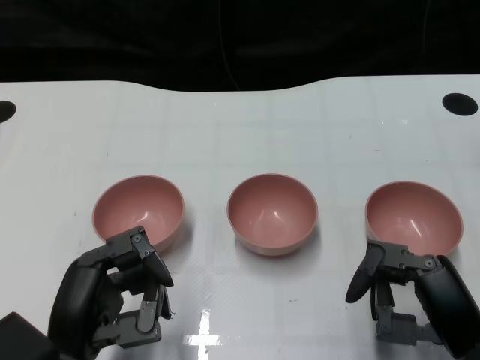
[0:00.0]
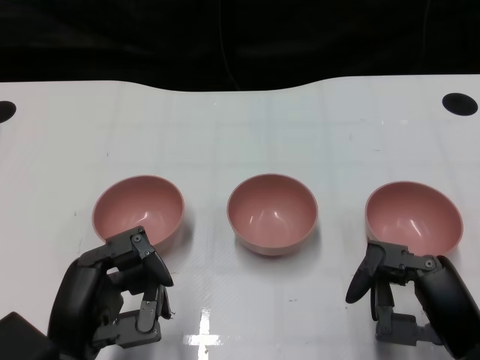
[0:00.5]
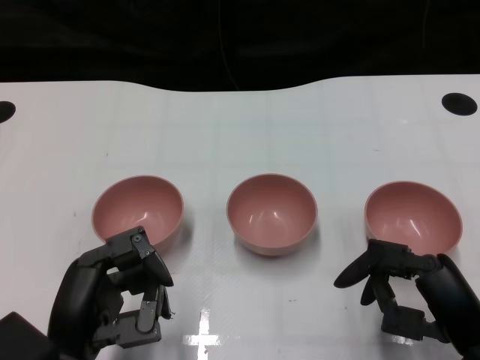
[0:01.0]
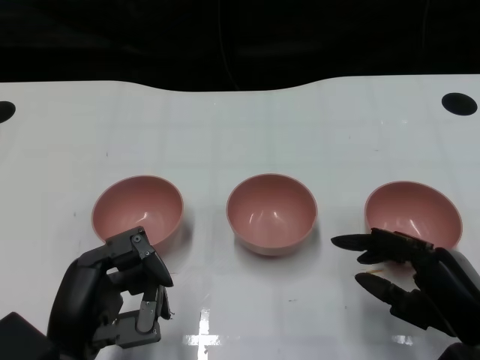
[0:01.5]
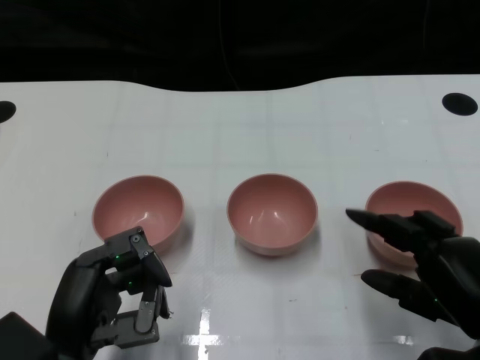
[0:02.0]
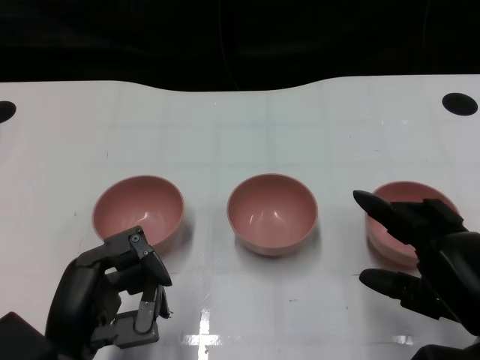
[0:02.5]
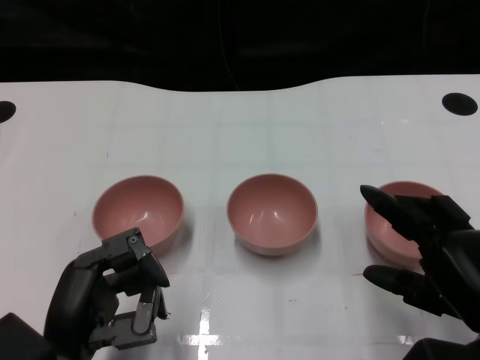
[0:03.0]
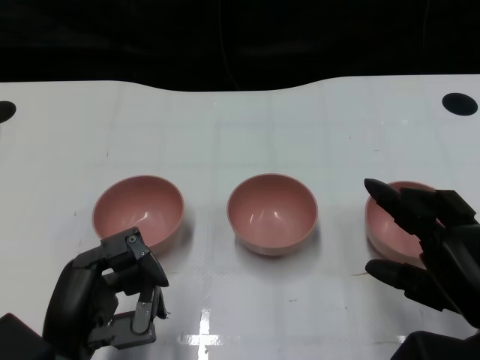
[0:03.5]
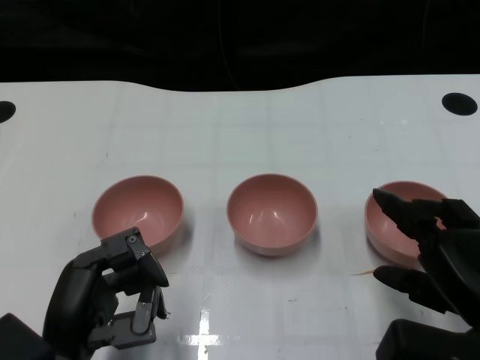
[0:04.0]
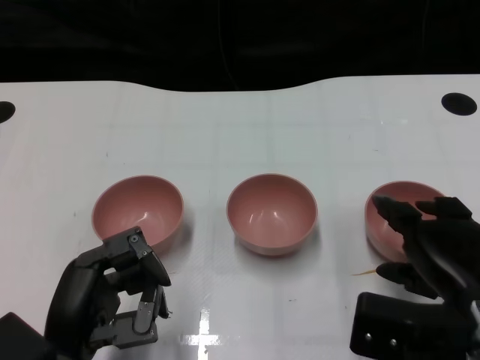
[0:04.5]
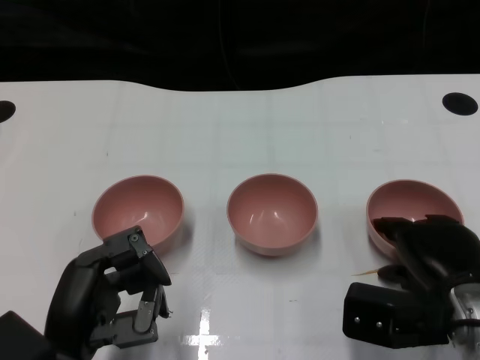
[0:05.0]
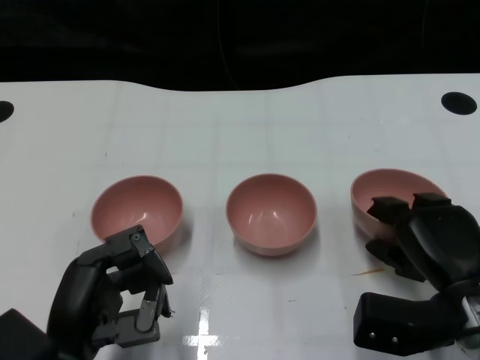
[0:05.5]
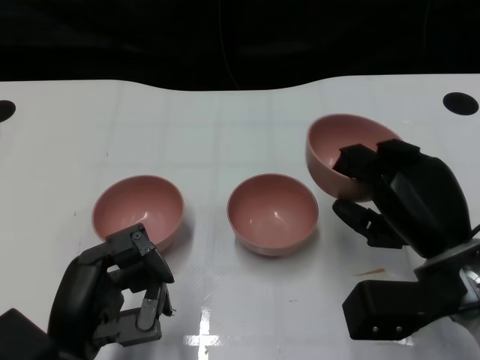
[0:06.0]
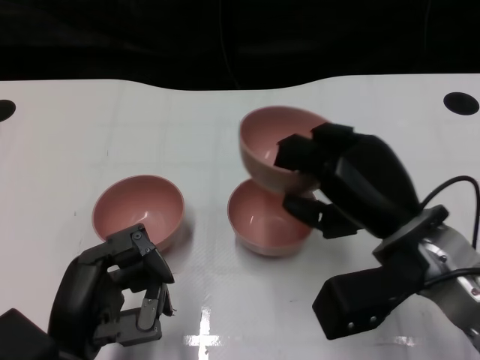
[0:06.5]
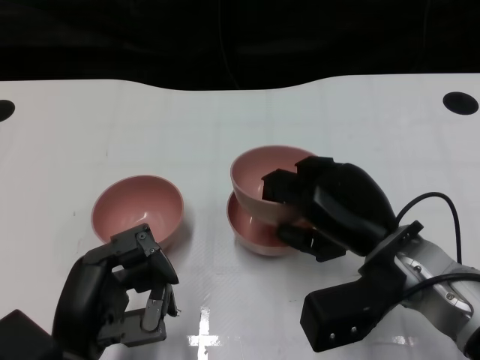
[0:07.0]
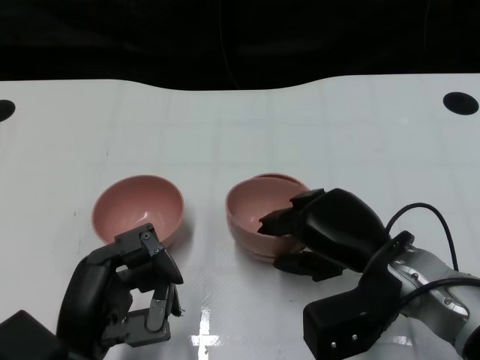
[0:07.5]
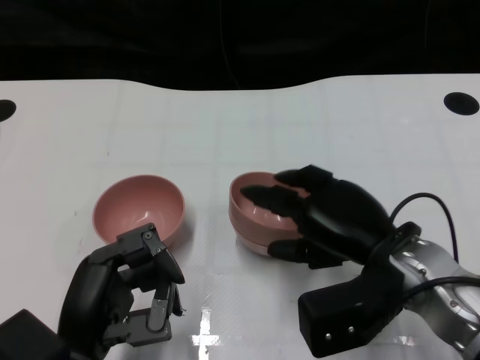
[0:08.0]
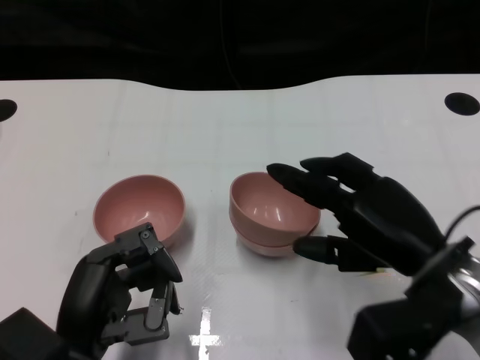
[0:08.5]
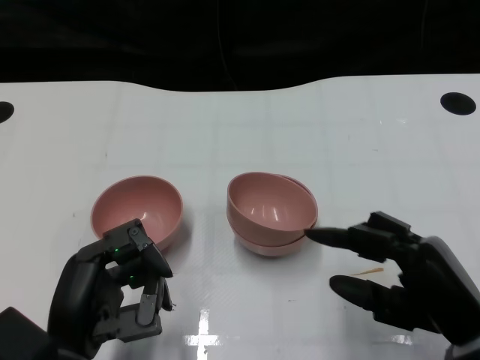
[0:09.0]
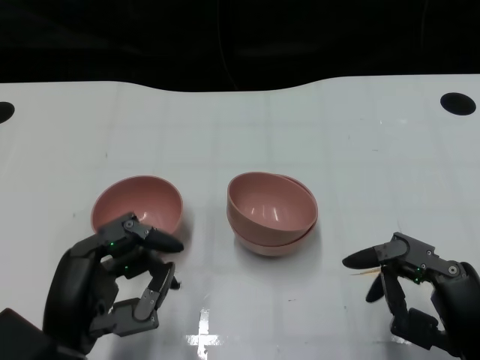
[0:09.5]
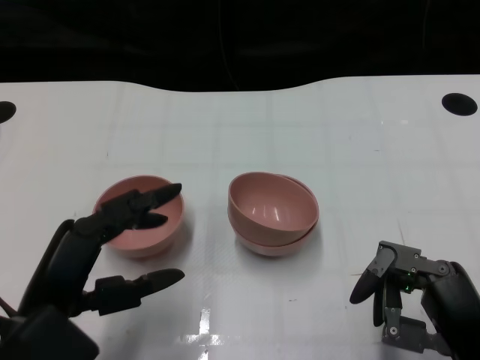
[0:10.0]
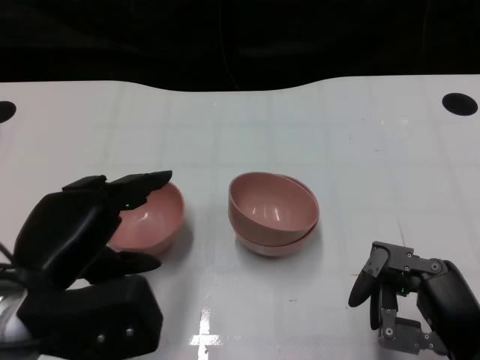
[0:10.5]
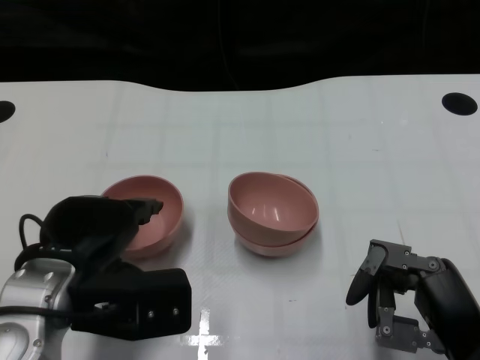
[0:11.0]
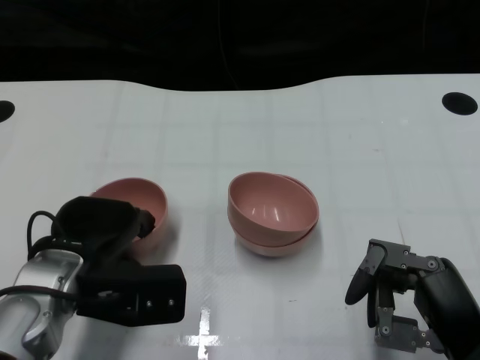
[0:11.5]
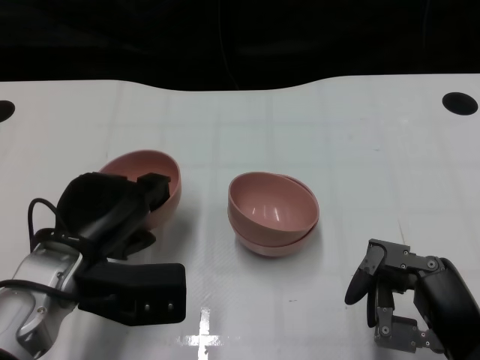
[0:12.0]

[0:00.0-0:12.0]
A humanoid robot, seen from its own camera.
Task of the whole recording: Pick up the bowl on one side of the table and place it on top of the middle bowl, then pick up the bowl on the other side of the table and place it on top of the middle bowls.
Step, 1.0 to 5.0 s: Grasp the bowl on the right with the right gripper.
Step, 5.5 to 8.5 s: Place the bowl on the right onto the bowl in the middle with right gripper.
Step, 9.0 to 11.5 s: Grasp the bowl on the left with the left gripper.
2.0 to 4.0 s: The hands stay close to where they were, moving slightly.
4.0 to 6.0 s: The right hand is displaced forward by about 5 cm.
6.0 to 8.0 s: The right hand ends up about 5 cm from where it was.
8.0 to 10.0 s: The right hand goes approximately 15 cm backward and to the right.
10.0 to 12.0 s: The left hand heads forward, covering about 10 cm.

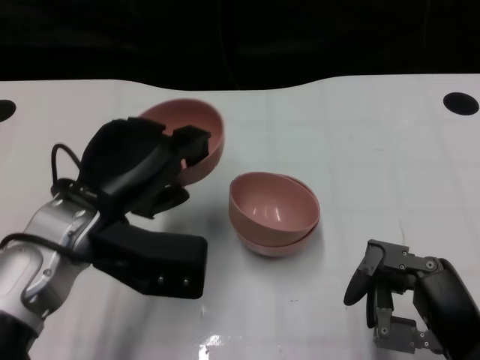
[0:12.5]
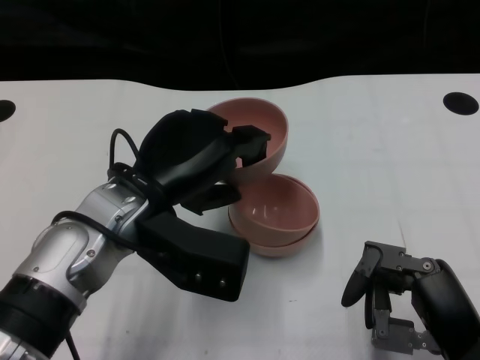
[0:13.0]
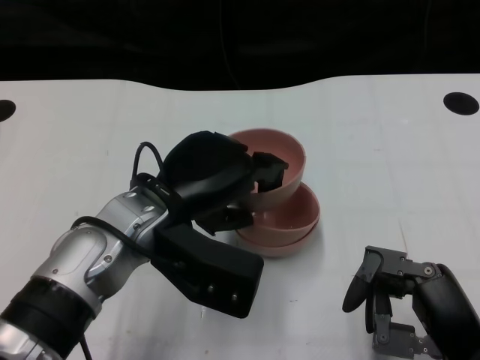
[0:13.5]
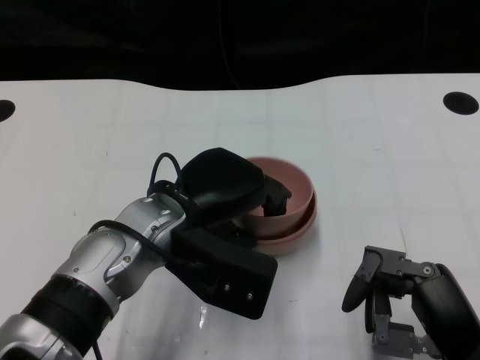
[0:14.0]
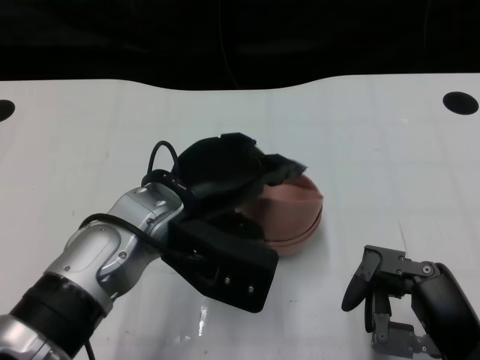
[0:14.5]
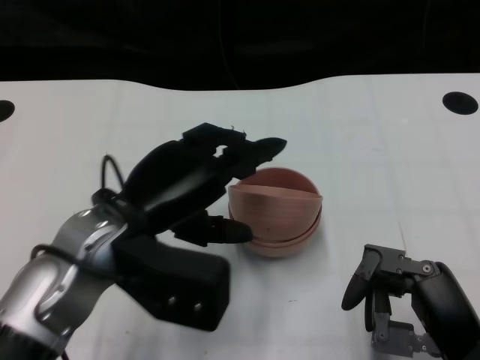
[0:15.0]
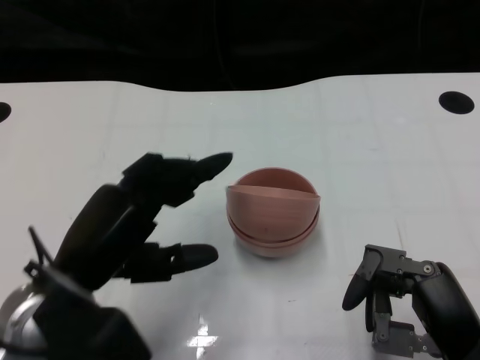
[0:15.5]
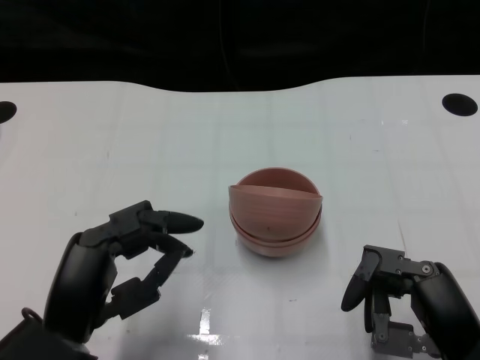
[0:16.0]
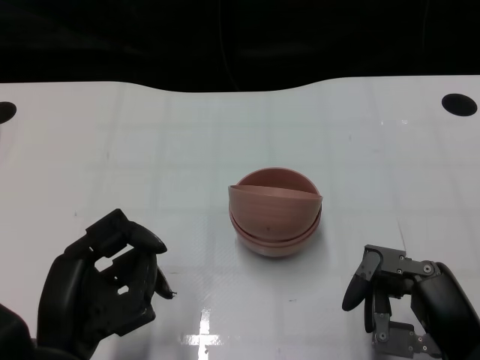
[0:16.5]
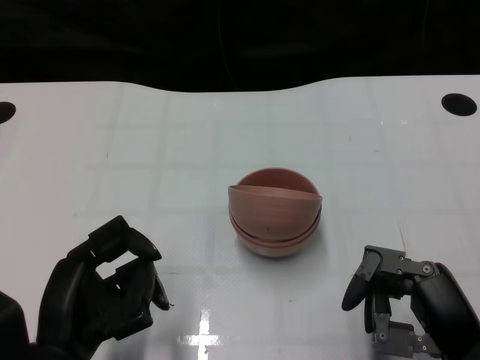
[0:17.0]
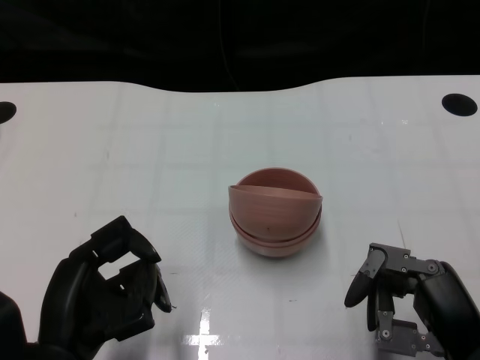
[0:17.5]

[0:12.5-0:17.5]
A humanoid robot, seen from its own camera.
Task of the whole recording: Pick up the bowl on one side of the table and place it on top of the middle bowl, then pick up the bowl on the other side of the table and place it on top of the middle bowls.
Step, 12.5 to 15.0 s: Place the bowl on the left onto the bowl in the middle with left gripper.
15.0 to 17.5 s: The left hand shifts some 15 cm backward, downward and to the left.

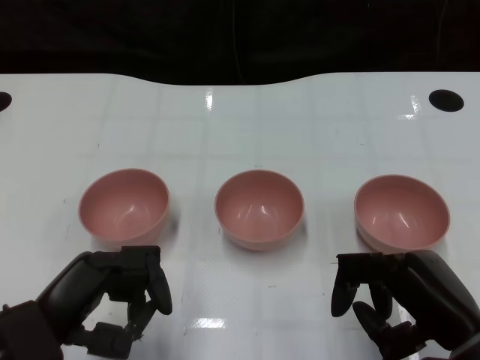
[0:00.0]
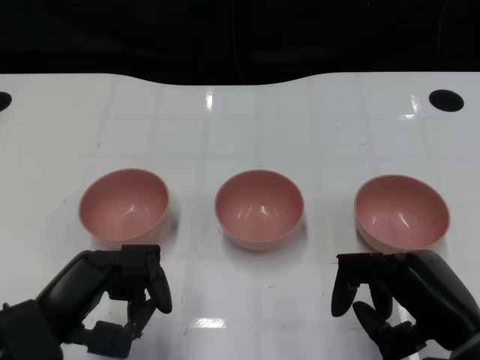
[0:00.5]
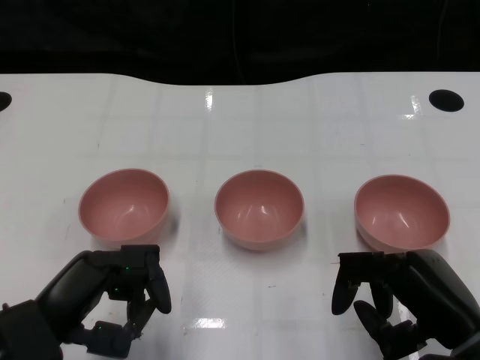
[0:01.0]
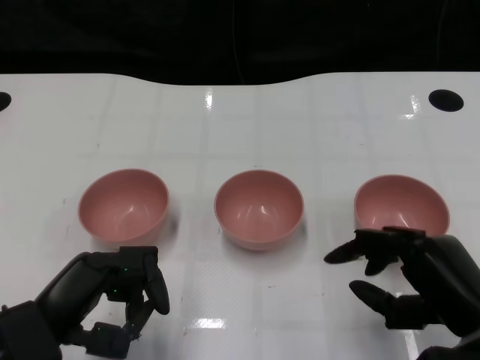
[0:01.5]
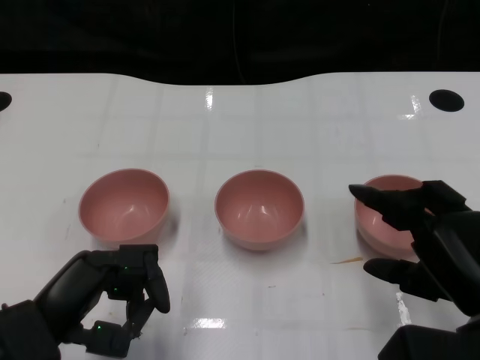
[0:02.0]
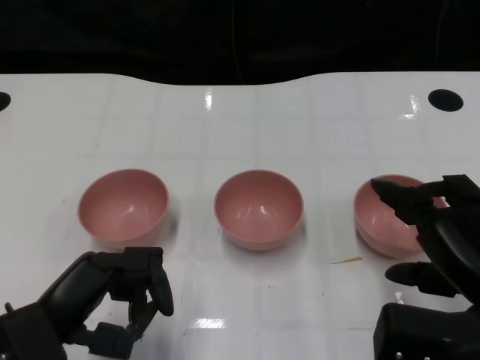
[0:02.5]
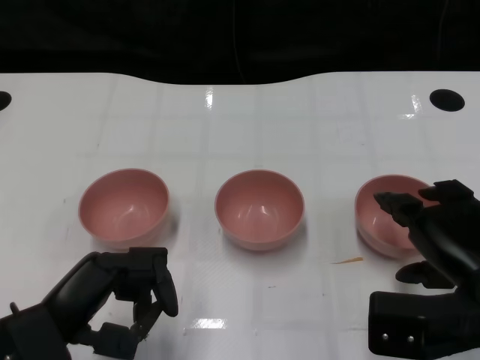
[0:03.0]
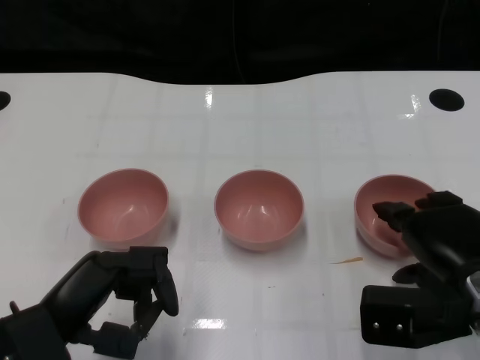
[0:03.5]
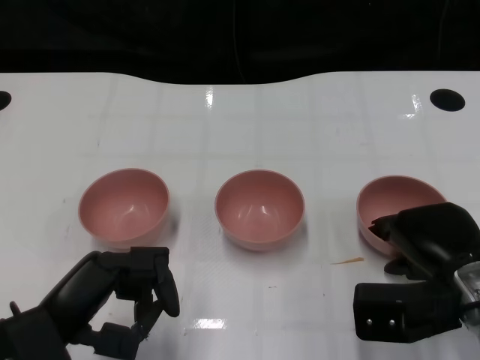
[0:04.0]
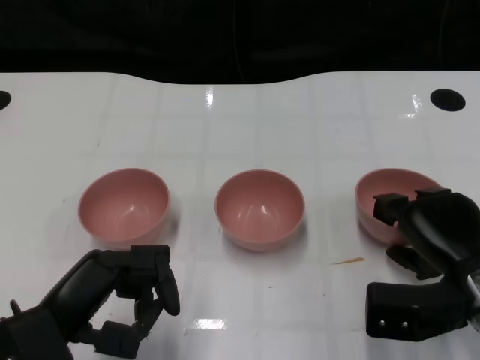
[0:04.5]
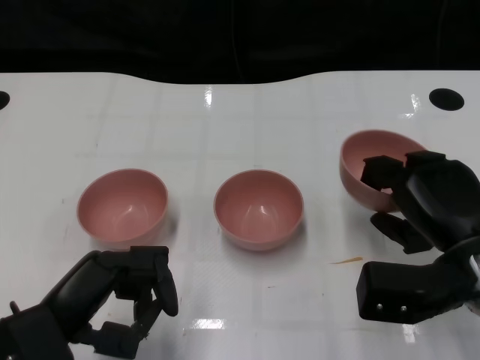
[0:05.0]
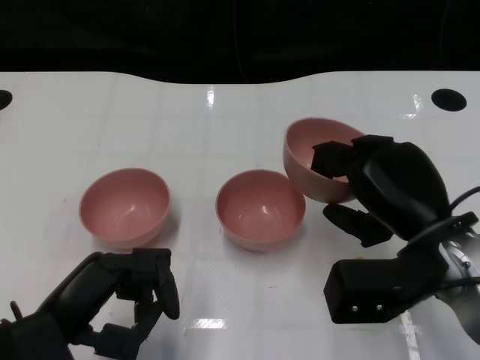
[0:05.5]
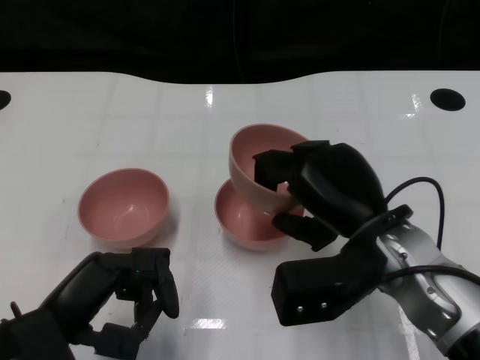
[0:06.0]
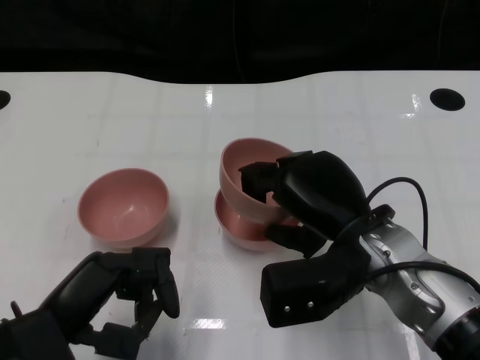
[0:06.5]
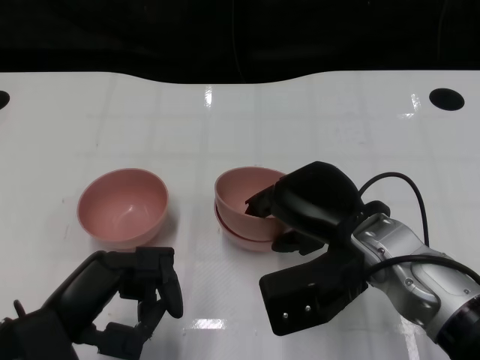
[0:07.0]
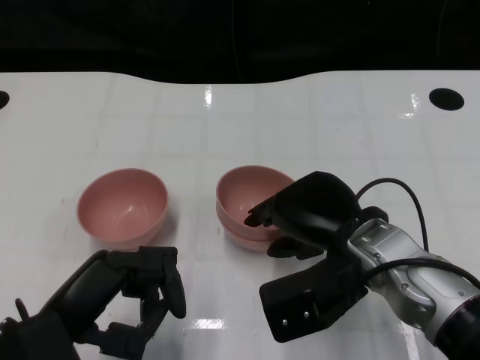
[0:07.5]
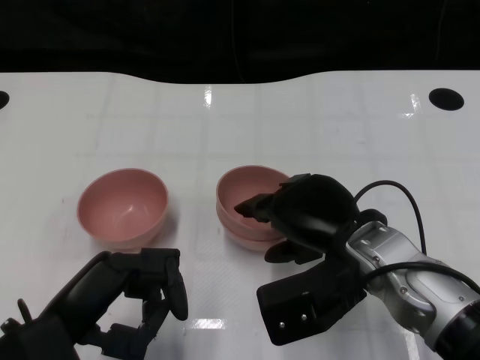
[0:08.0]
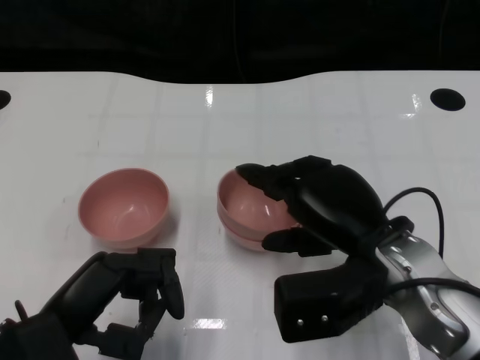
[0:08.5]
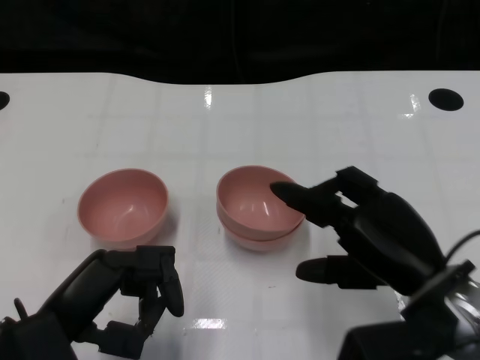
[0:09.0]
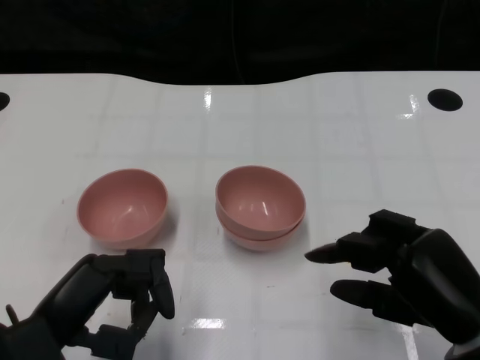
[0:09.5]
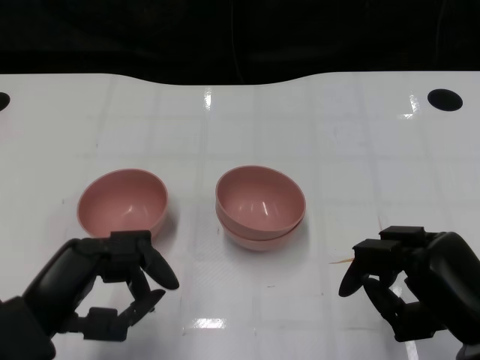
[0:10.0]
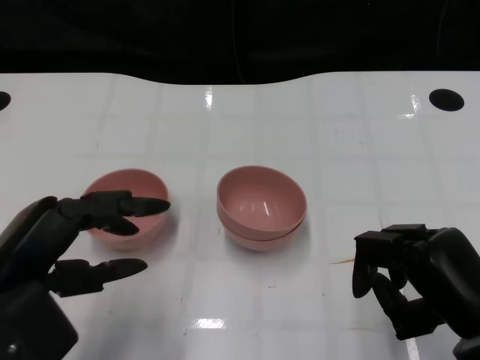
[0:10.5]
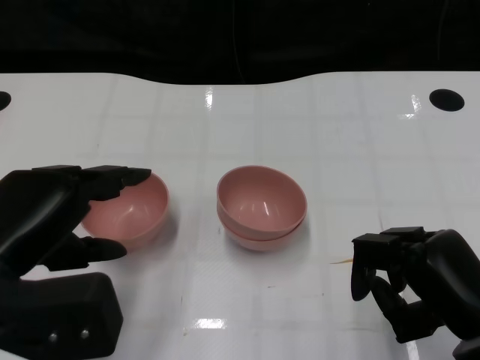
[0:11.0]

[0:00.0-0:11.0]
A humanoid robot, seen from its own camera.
Task of the whole recording: Pick up the bowl on one side of the table and place it on top of the middle bowl, then pick up the bowl on the other side of the table and place it on top of the middle bowls.
Step, 1.5 to 4.5 s: Grasp the bowl on the right with the right gripper.
Step, 5.0 to 8.5 s: Place the bowl on the right onto the bowl in the middle with right gripper.
2.0 to 3.5 s: The right hand is displaced forward by roughly 5 cm.
3.5 to 5.5 s: The right hand moves some 5 cm.
5.5 to 7.5 s: The right hand heads to the left, covering approximately 5 cm.
7.5 to 9.0 s: The right hand heads to the right and backward, covering some 10 cm.
9.0 to 11.0 s: The right hand ends up roughly 5 cm from where it was, while the left hand moves upward, roughly 10 cm.
